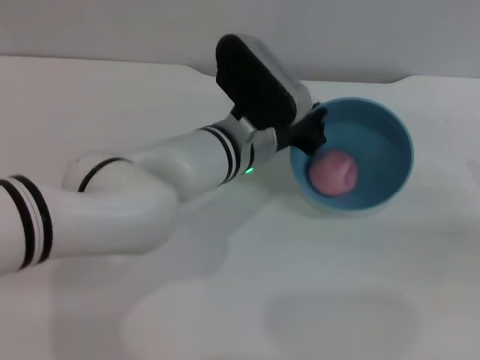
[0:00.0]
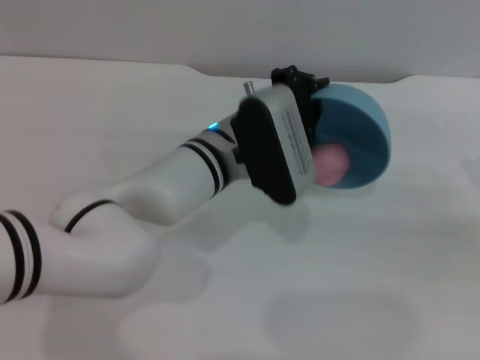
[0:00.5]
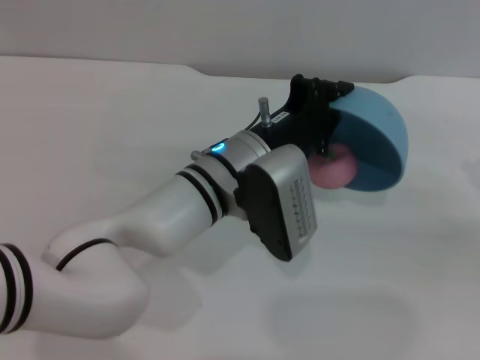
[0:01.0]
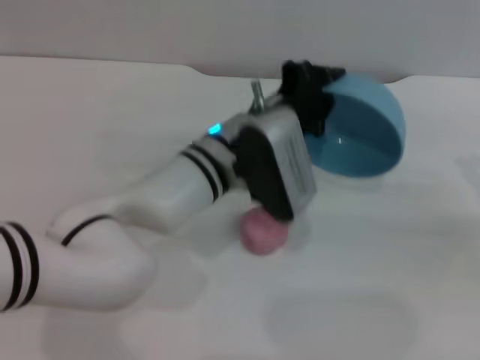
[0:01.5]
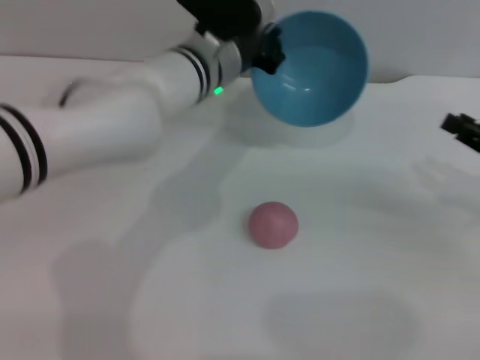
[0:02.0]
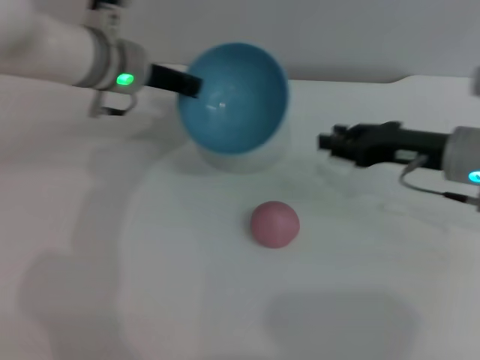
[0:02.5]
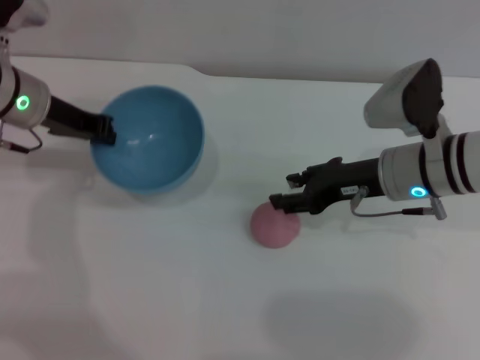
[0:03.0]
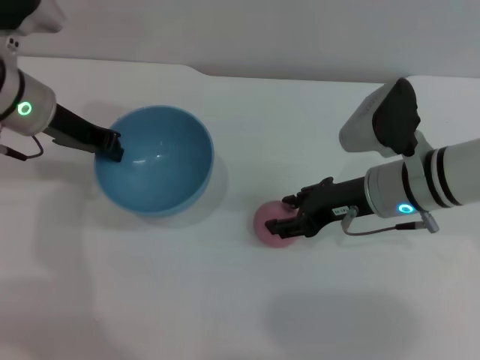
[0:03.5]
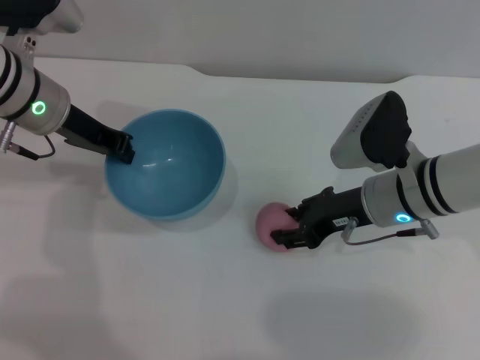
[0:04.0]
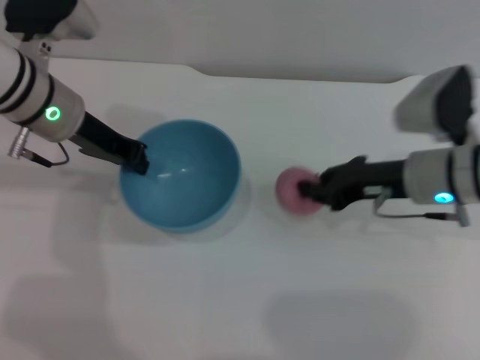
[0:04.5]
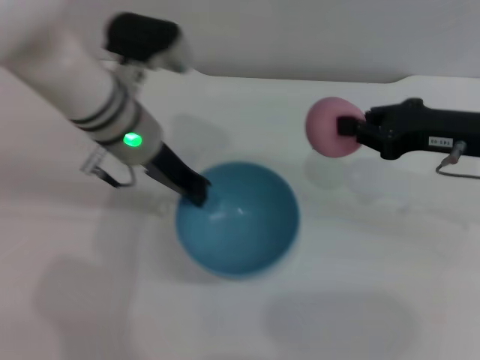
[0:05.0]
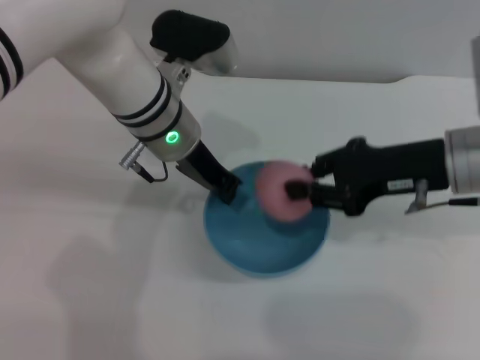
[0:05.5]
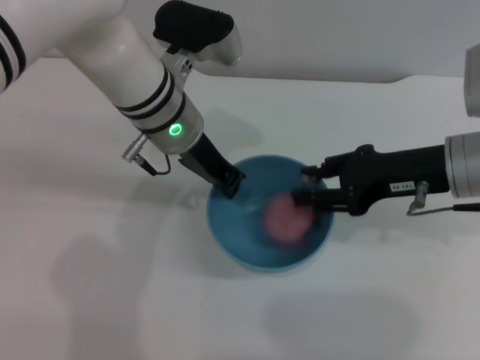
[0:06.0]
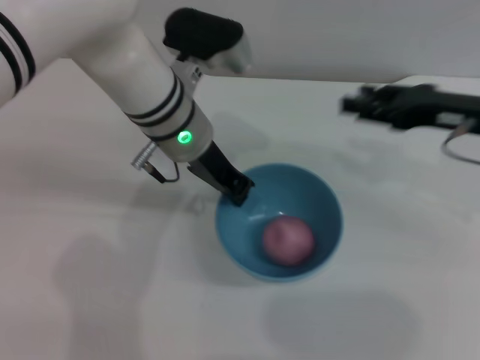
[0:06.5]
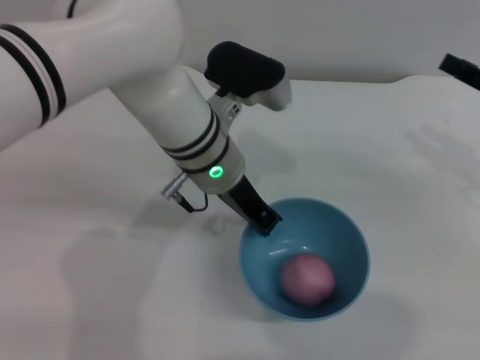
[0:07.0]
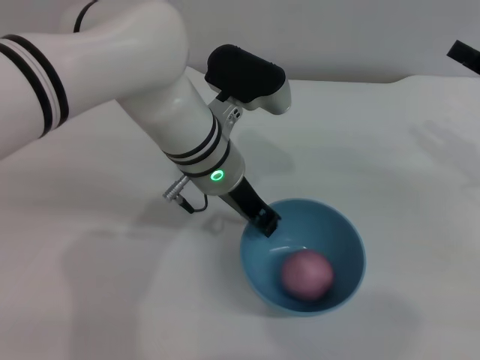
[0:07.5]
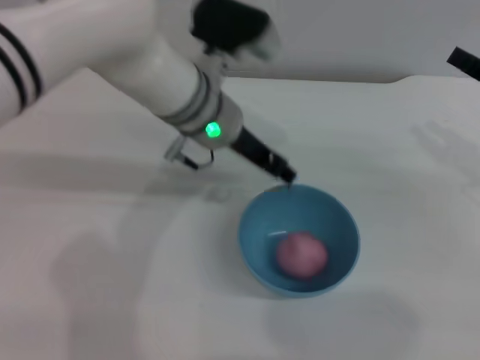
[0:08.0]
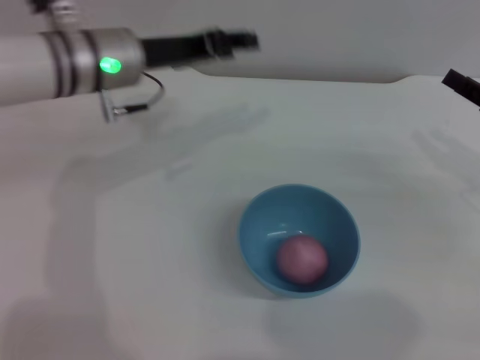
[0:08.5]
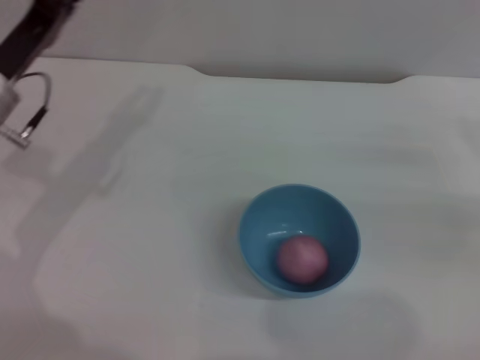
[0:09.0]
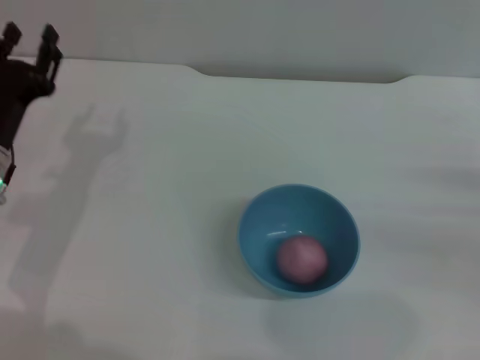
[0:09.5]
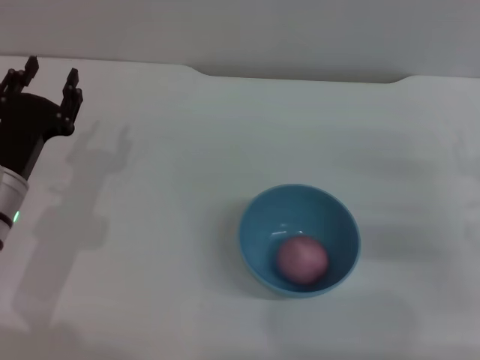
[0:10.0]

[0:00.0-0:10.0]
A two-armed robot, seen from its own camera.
Task of the whole recording: put the peach into the blue bowl and pour it out repeatedly.
Step, 0:00.0 to 0:01.5: Pour the peach out of bowl.
Step, 0:02.0 to 0:04.5: Pick up the peach with the right gripper.
Step, 0:05.0 to 0:06.0: Place the peach into the bowl.
Step, 0:06.5 to 0:08.0: Place the bowl on the table.
0:00.0 to 0:02.0: The left gripper heads forward, covering some 5 cm, while the right gripper shifts by roughly 5 cm.
0:02.0 to 0:04.0: Both grippers travel together to the left, about 15 cm.
0:04.0 to 0:06.0: The left gripper travels to the right by about 15 cm. Meanwhile the right gripper shifts some 10 cm upward and to the right, and closes and opens again.
0:06.0 to 0:08.0: The left gripper opens its fingers. The right gripper goes some 10 cm to the right, and opens.
0:08.0 to 0:10.0: The left gripper moves to the left, backward and downward, some 25 cm. The right gripper is displaced downward by roughly 5 cm.
